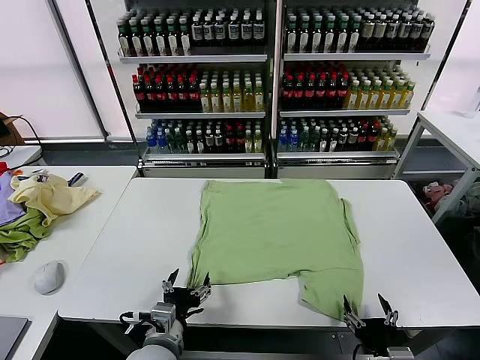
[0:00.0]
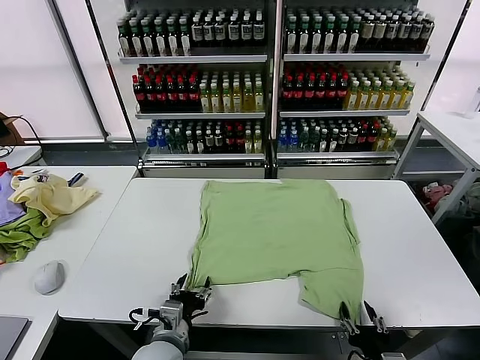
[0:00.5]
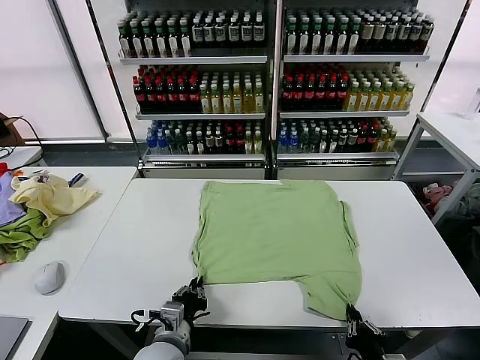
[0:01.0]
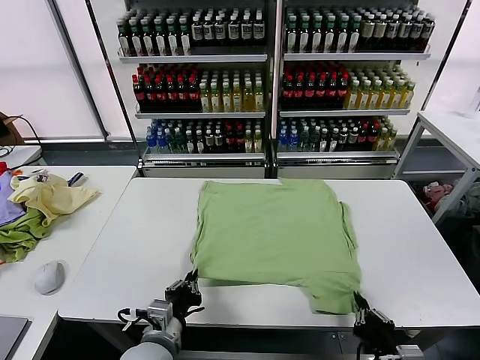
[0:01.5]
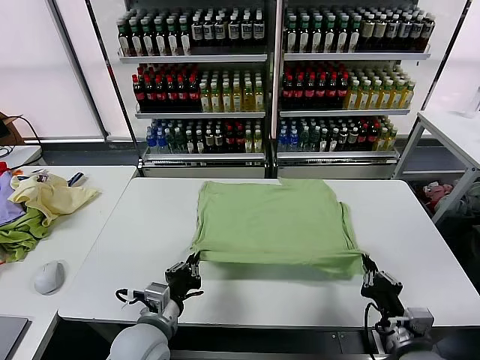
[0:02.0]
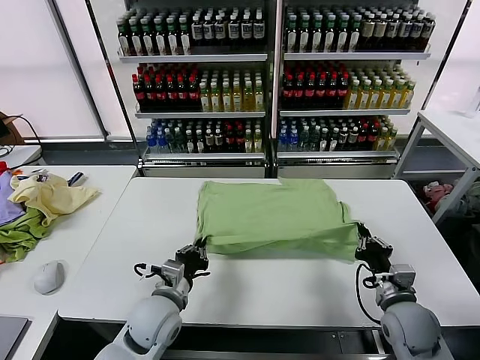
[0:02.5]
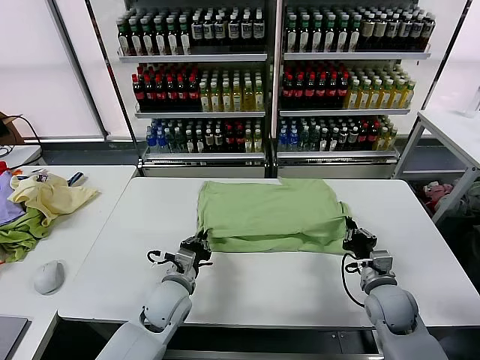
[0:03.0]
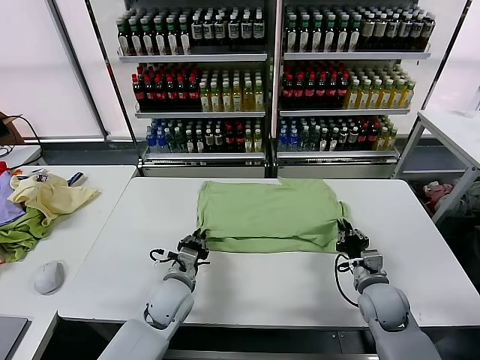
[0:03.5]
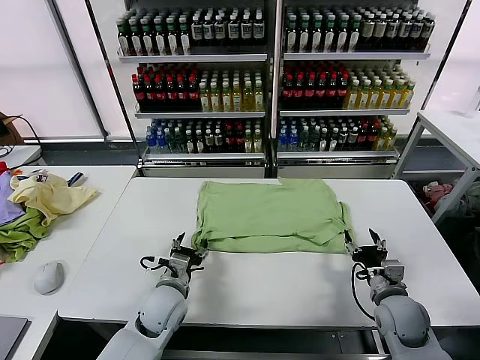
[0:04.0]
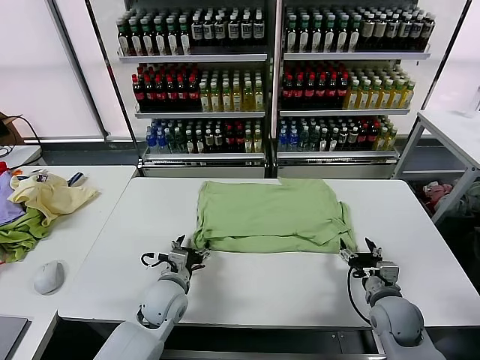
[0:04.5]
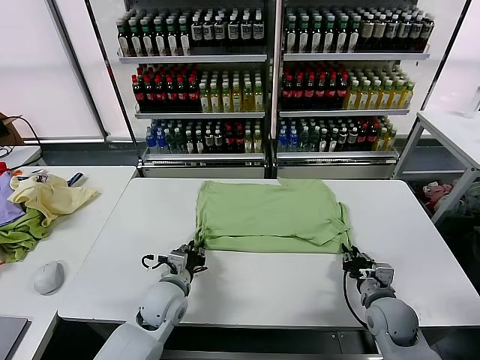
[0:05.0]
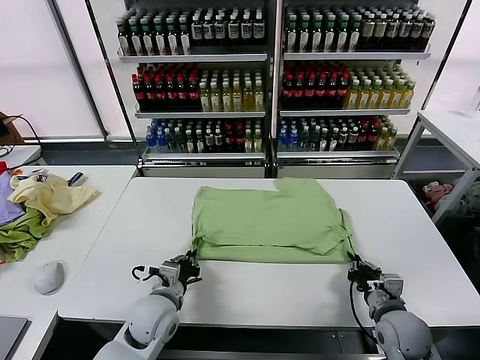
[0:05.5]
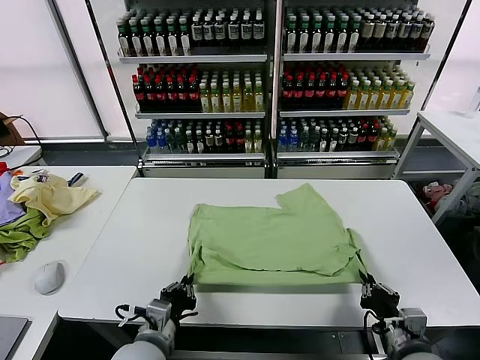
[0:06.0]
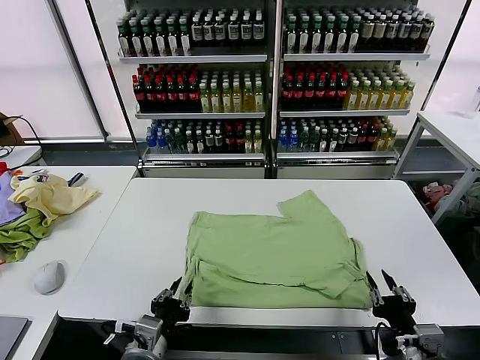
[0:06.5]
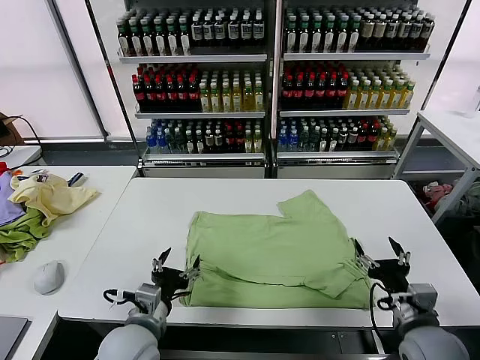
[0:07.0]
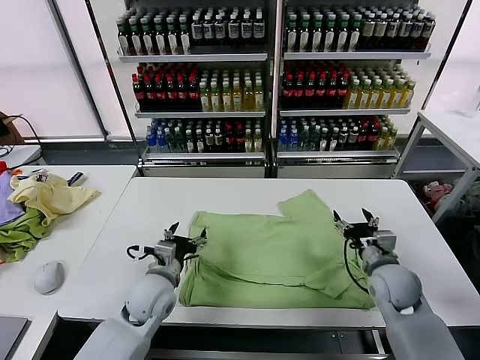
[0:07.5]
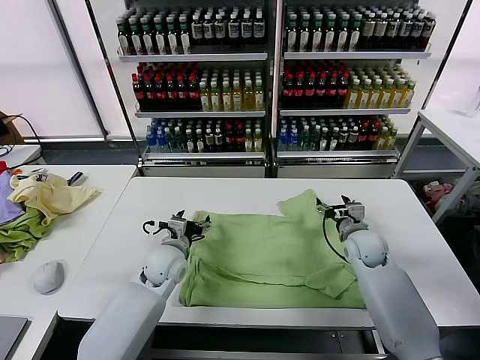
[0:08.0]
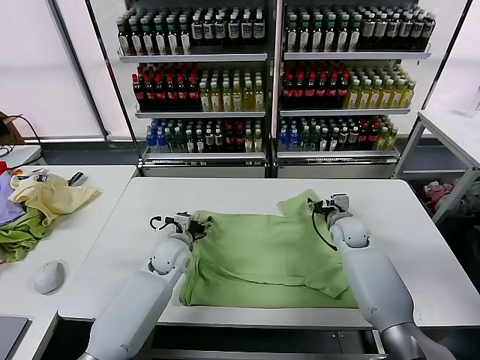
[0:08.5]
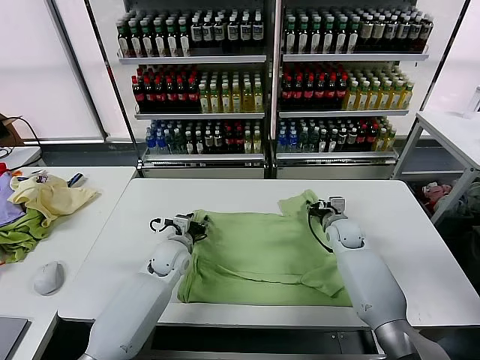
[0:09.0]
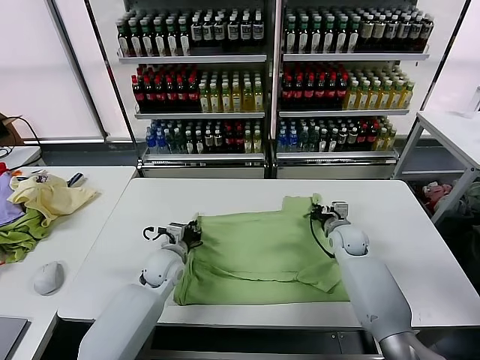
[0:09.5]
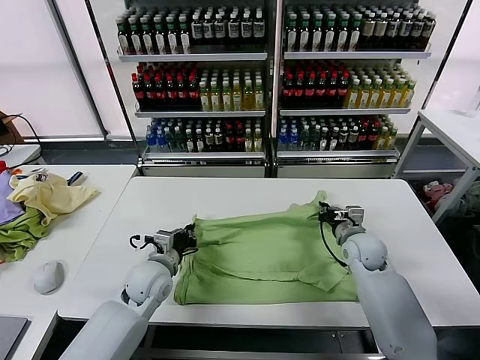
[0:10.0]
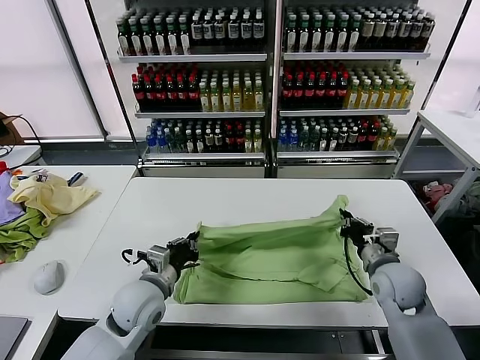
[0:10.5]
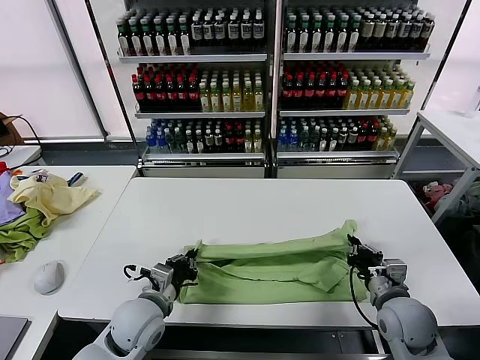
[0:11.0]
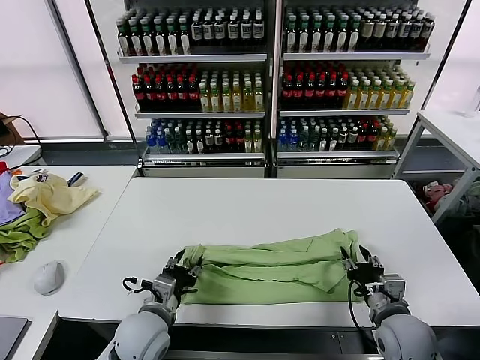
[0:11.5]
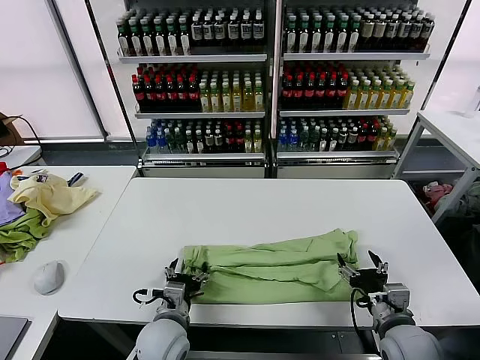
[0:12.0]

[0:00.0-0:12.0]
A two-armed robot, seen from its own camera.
Task of the whole recording: fold and organize the clothes.
Step, 0:00.0 to 0:01.0: use both grippers simultaneously to clamp the lower edge of the clothing fabric.
Step, 0:01.5 to 0:03.5: use both grippers to drag the lower edge of the fabric forward and fold it over the upper edge.
Step, 0:04.0 to 0:06.5: Drag the clothes downward with both gripper.
Step, 0:07.0 to 0:09.0: use both grippers simultaneously to clamp the upper edge of the clothing fabric.
Step, 0:10.0 to 0:11.5: use both grippers to drag the upper edge of the fabric backward and fold it over the lower edge.
0:02.0 to 0:04.0: Both grippers travel together forward, approximately 10 cm. The right gripper opens its fingers; the left gripper opens its fingers.
0:04.0 to 0:06.0: Both grippers move backward, some 15 cm. The left gripper closes; the right gripper closes up.
0:06.0 to 0:08.0: The two grippers go some 25 cm forward. The right gripper opens. The left gripper opens.
0:08.0 to 0:10.0: The right gripper closes; the left gripper changes place by roughly 5 cm, and closes its fingers.
0:10.0 to 0:12.0: The right gripper is displaced backward by some 20 cm, and opens up. The left gripper moves backward and to the right, approximately 15 cm, and opens up.

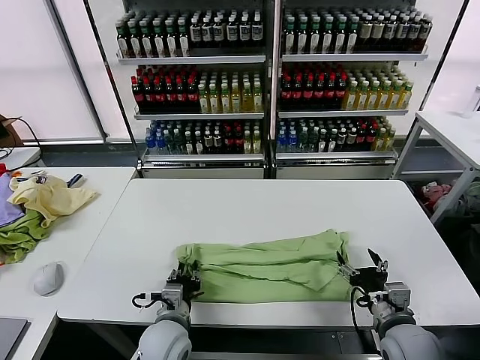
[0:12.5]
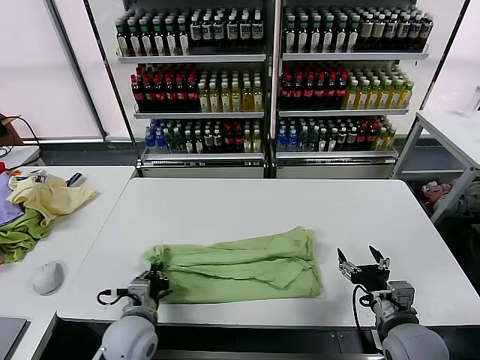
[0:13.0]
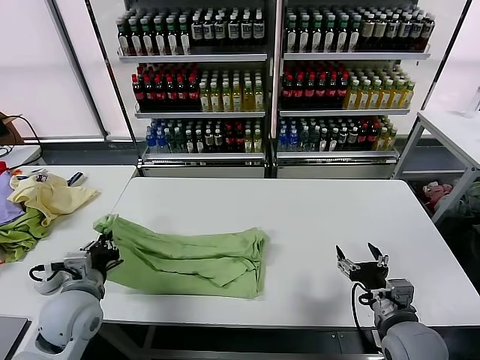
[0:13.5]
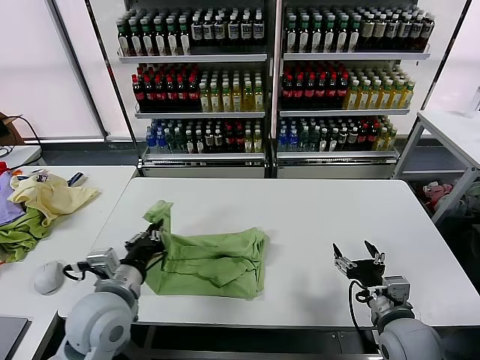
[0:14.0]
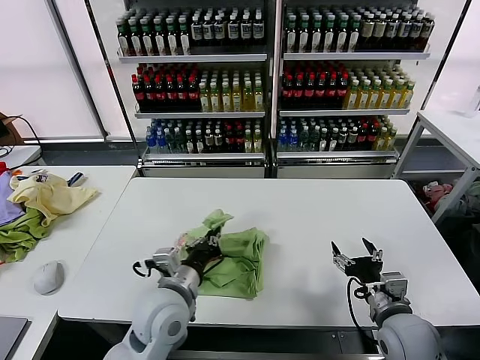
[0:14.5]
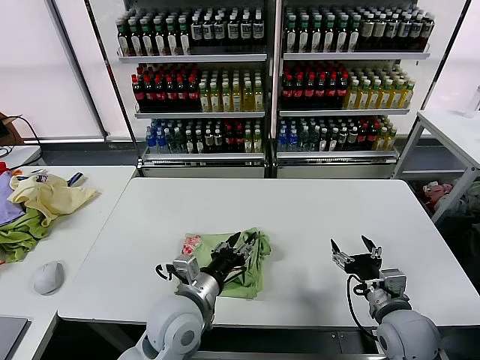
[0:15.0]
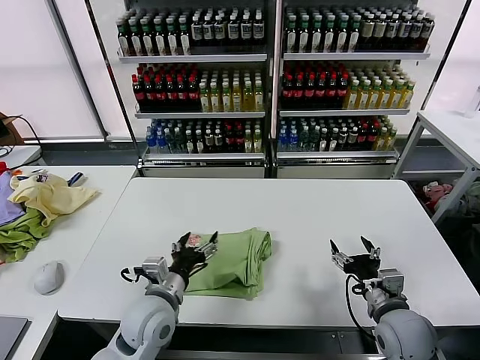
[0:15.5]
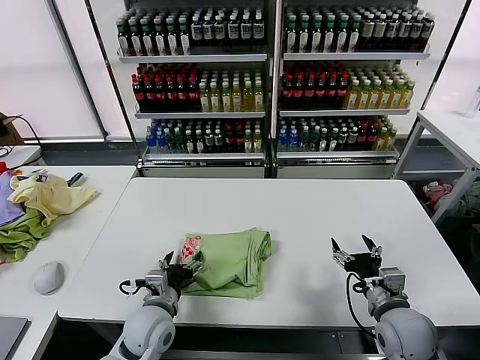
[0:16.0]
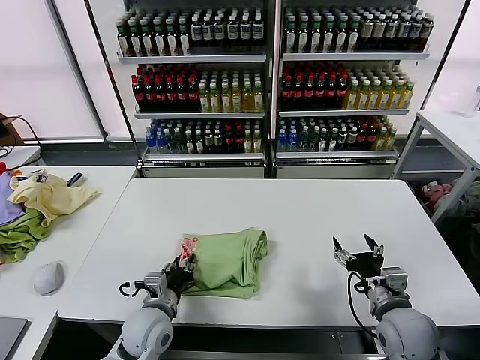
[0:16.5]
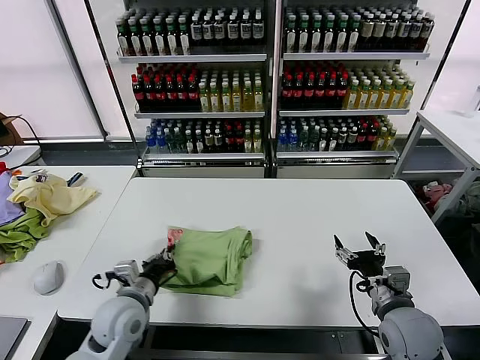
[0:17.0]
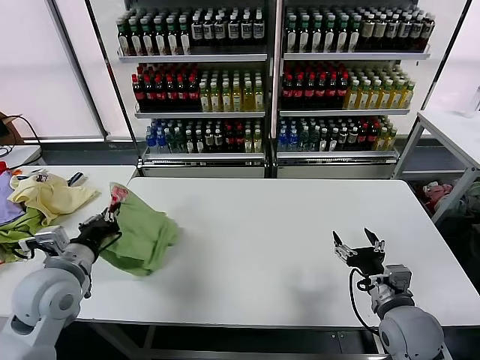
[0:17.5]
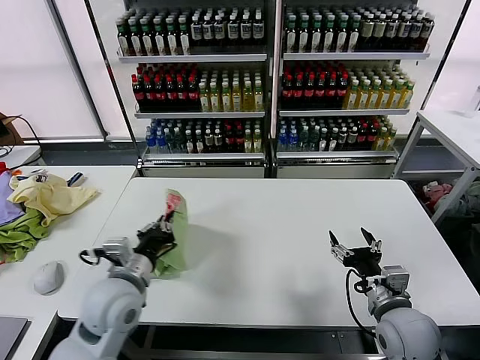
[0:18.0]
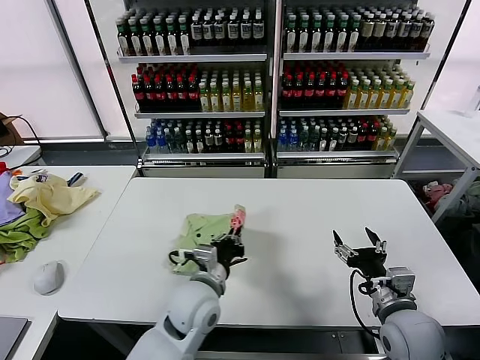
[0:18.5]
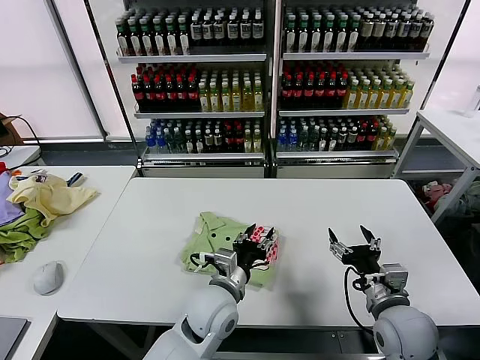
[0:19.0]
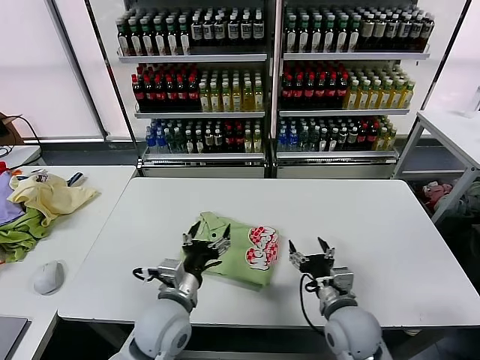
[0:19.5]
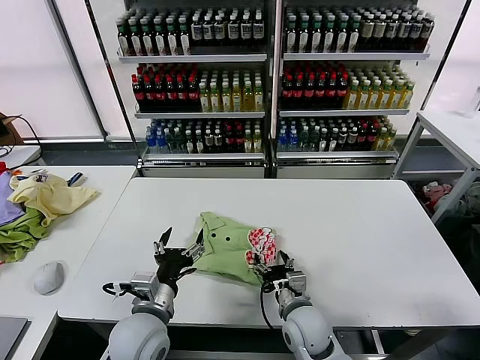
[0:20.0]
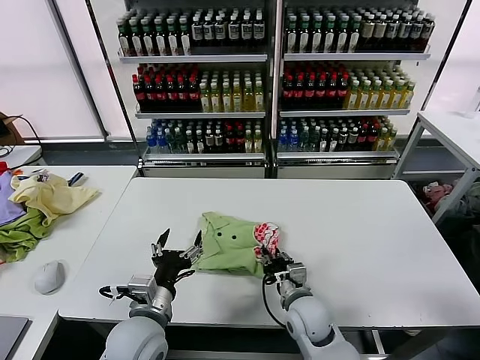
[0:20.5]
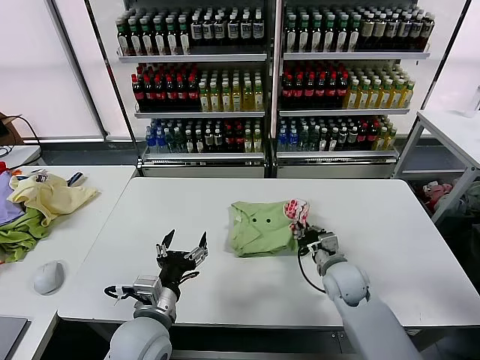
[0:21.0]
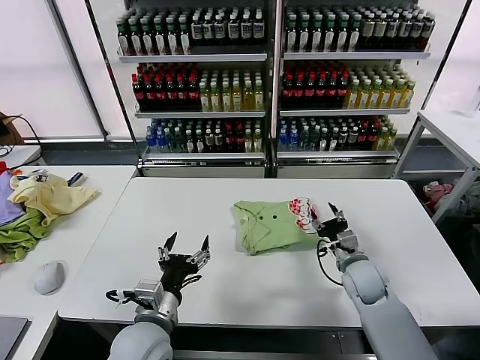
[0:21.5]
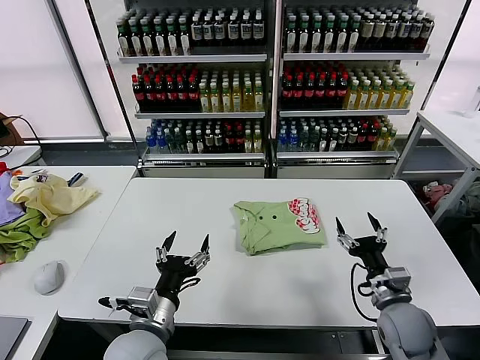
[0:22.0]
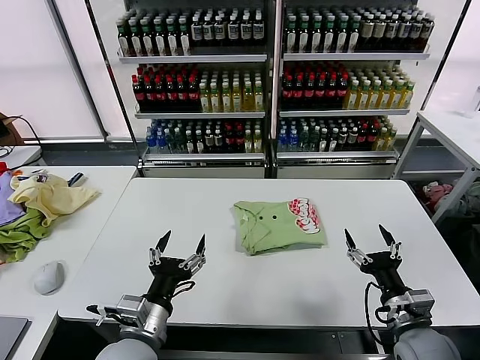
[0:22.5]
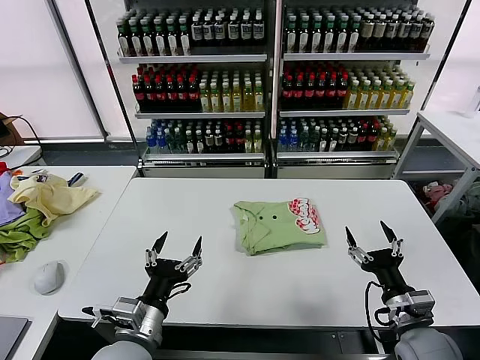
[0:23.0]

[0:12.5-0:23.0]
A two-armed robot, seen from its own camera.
Task of the whole recording: fold and organize the clothes.
Step, 0:13.0 to 0:15.0: use the left gripper to drag the left edge of the fabric to the left and folds it over the right edge.
Step, 0:15.5 to 0:18.5: Flip the folded clothes over with left gripper.
Step, 0:19.0 to 0:21.0: Drag the clothes to the center of the table.
0:12.5 to 0:14.5: The left gripper goes roughly 10 cm upward, and goes to the left and returns, some 15 cm each way.
0:14.5 to 0:16.5: The left gripper moves downward, roughly 10 cm, and opens.
0:16.5 to 0:19.0: The left gripper travels to the right and upward by about 15 cm, and closes, then reopens.
0:19.0 to 0:21.0: The right gripper heads forward, downward and to the left, covering about 15 cm, and closes up. Meanwhile the left gripper travels to the left and backward by approximately 15 cm, and opens up.
0:21.0 to 0:23.0: The right gripper shifts about 20 cm backward and to the right, and opens its fingers.
